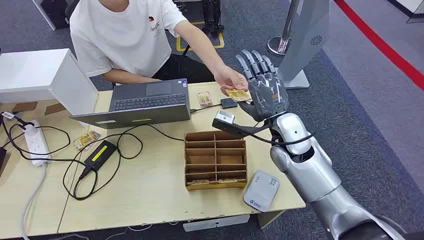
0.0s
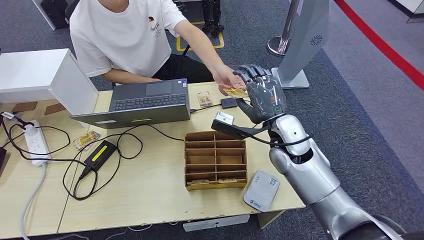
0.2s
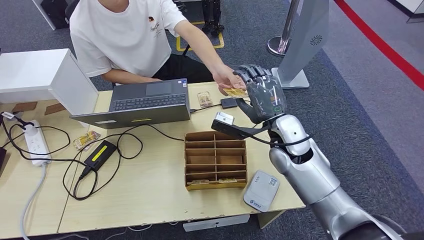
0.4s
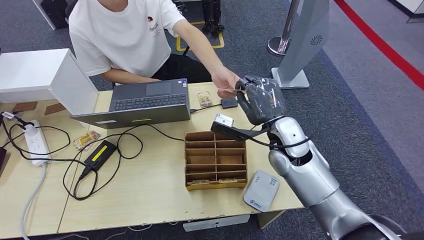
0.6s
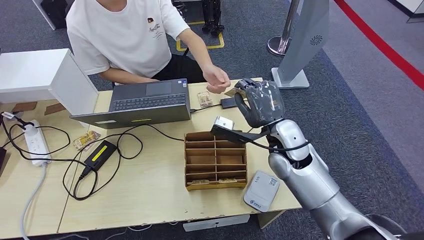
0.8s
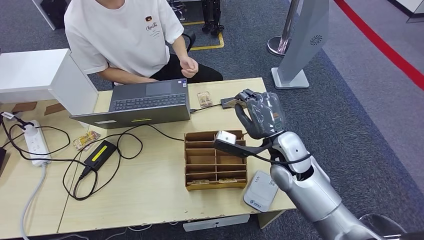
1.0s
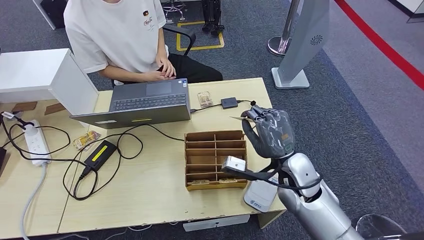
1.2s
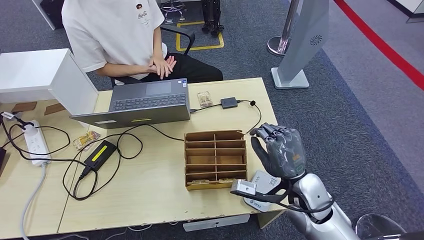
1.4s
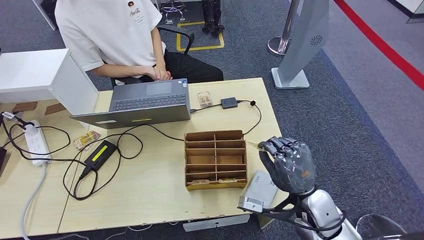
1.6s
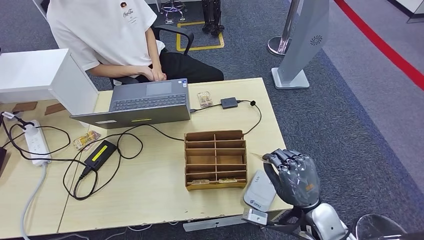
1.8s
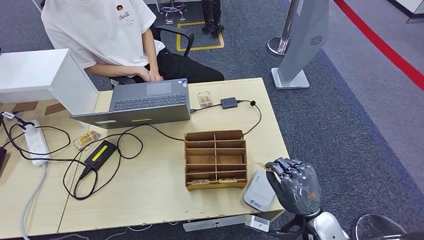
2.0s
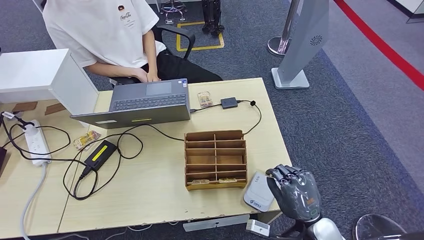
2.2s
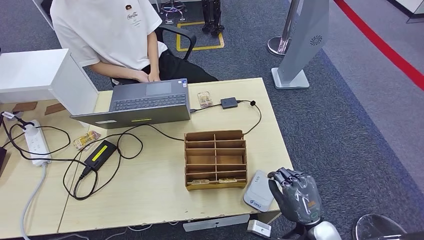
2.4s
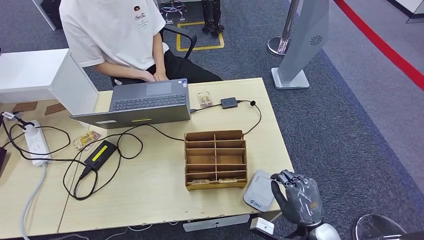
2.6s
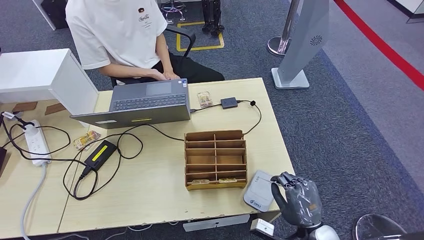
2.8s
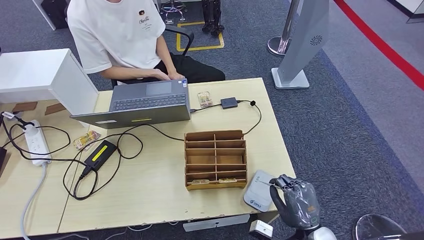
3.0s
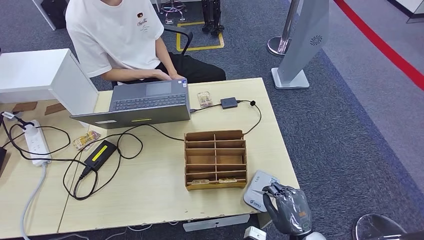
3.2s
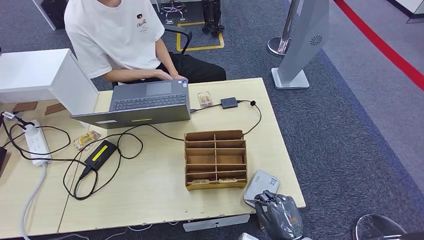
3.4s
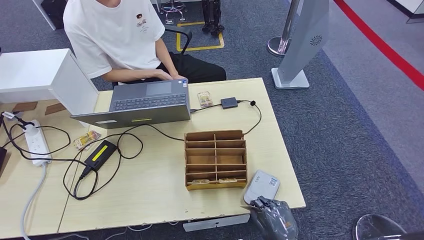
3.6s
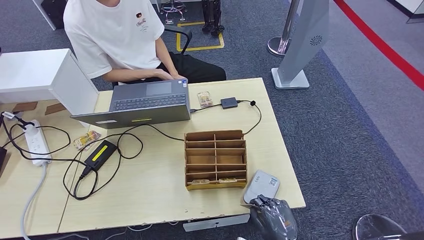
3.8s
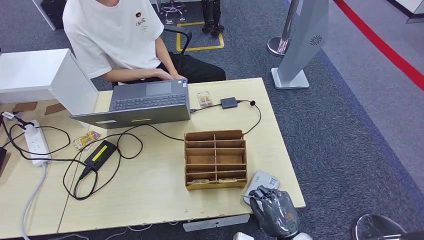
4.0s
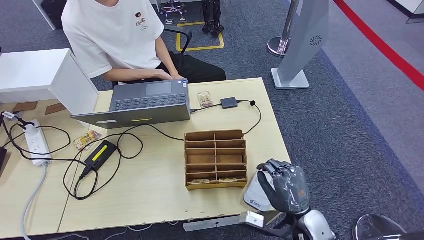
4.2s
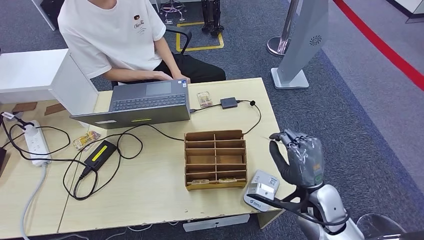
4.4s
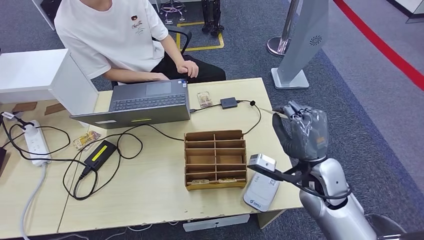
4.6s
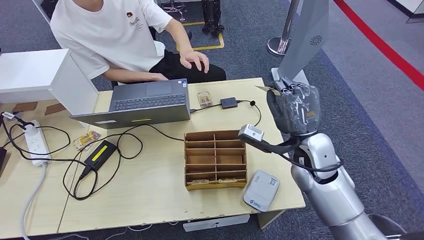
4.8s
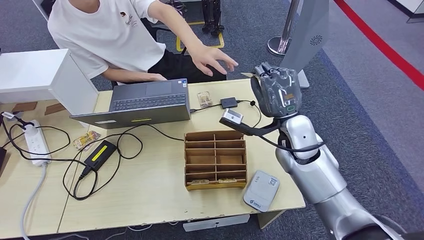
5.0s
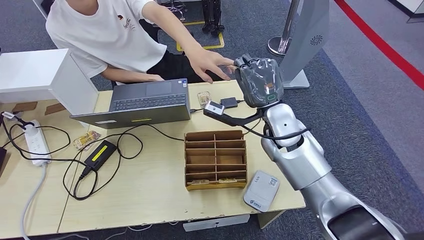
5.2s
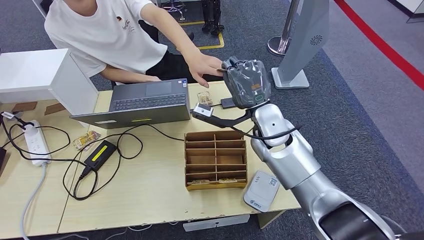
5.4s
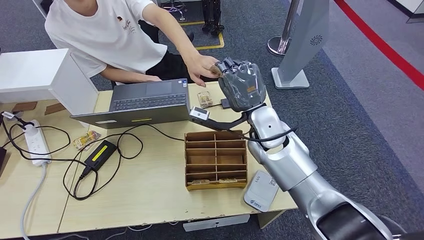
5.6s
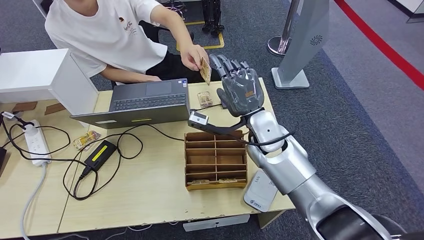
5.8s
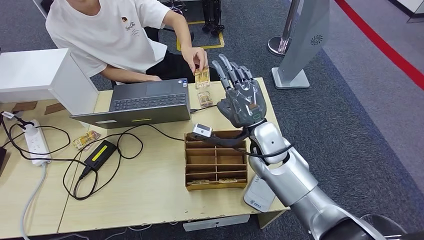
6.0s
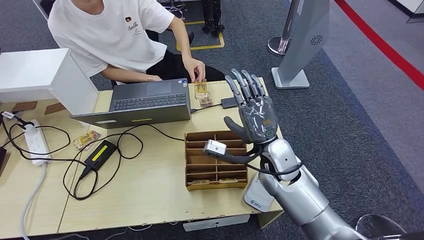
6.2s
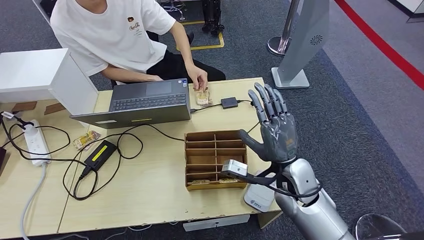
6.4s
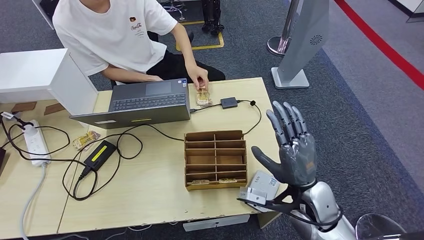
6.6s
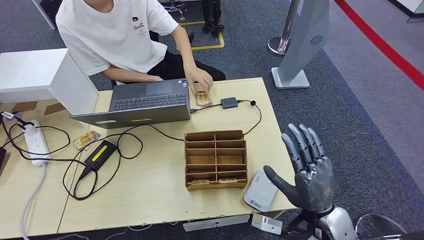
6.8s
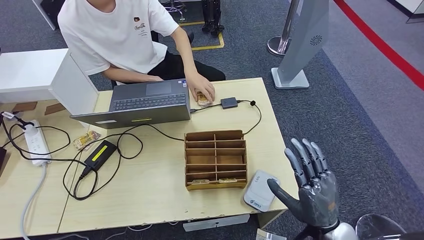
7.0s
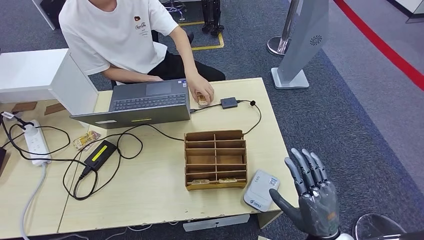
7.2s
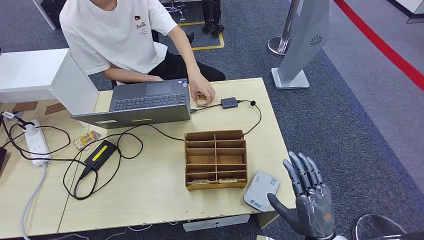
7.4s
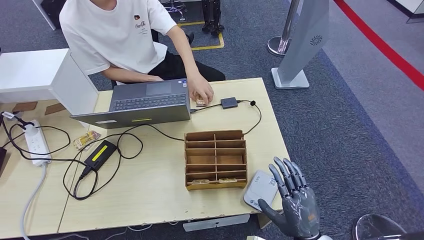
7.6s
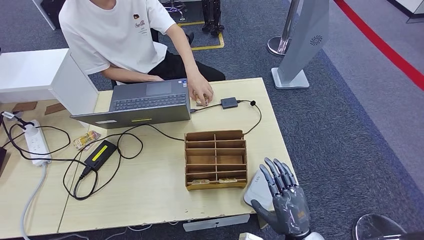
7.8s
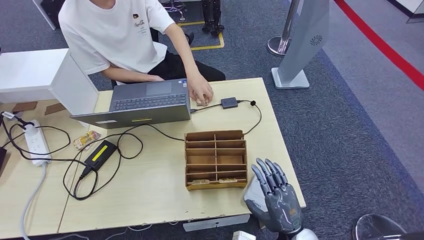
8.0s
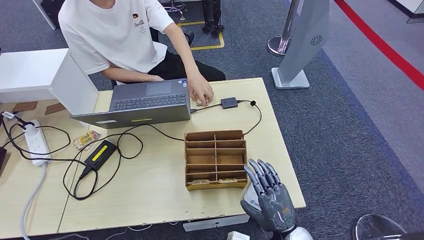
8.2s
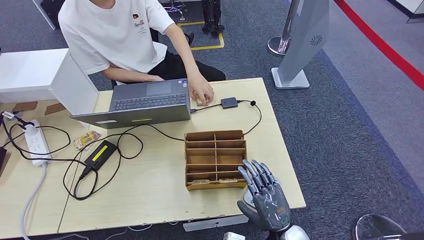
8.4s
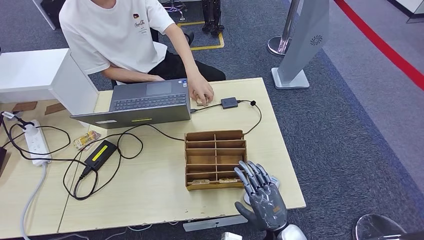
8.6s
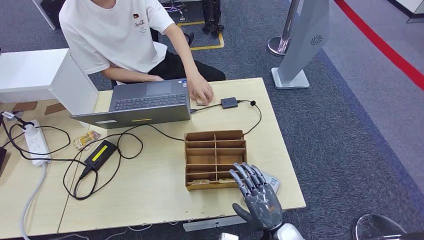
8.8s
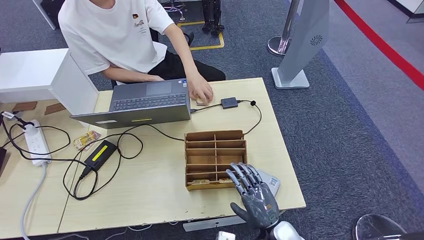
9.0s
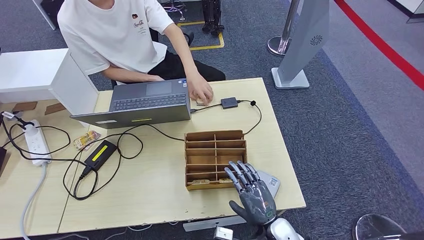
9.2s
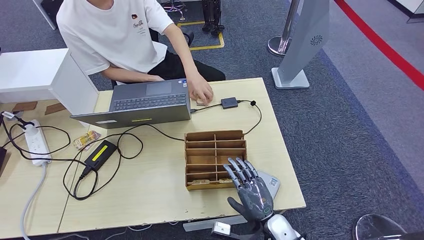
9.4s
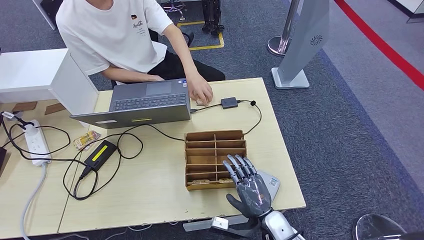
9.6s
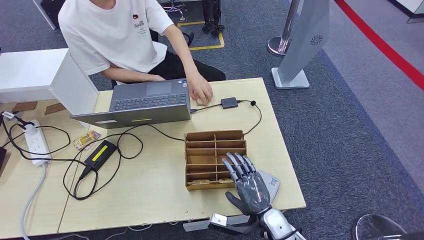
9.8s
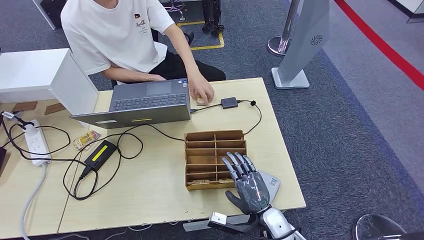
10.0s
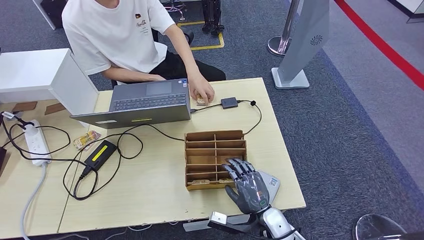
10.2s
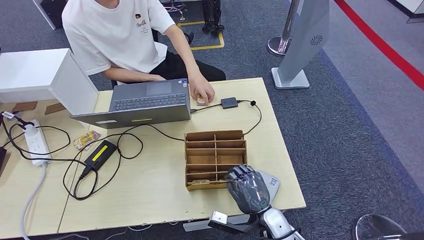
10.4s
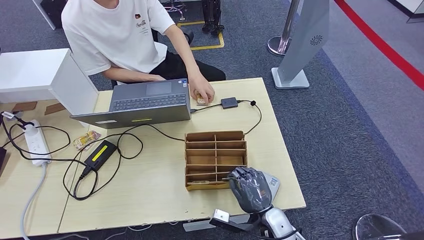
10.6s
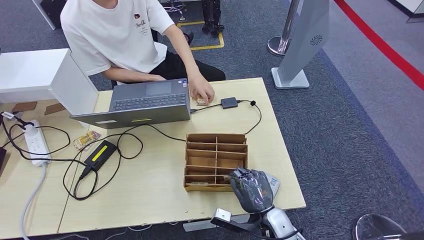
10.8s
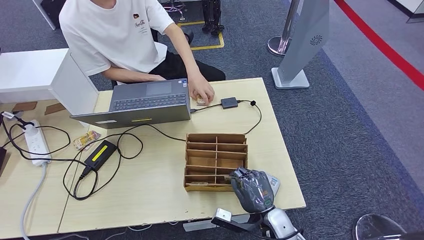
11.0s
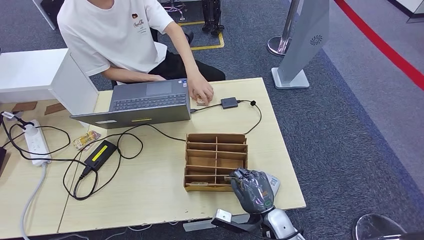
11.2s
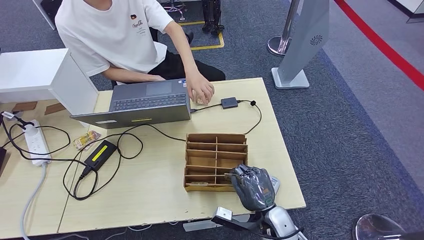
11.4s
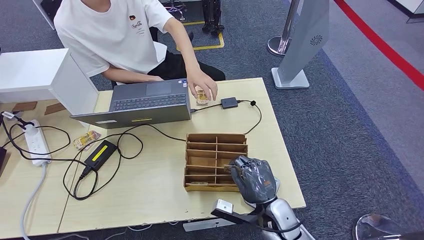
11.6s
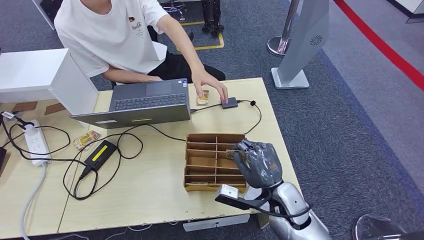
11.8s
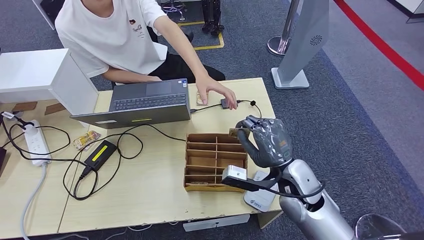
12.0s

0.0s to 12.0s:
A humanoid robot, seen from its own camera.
Step, 0.0s to 1.8s: Take the ID card from the person's hand.
Step, 2.0s to 4.6s: Place the ID card on the card reader.
Step, 5.0s to 7.4s: Hand the ID card to the person.
Step, 7.8s to 12.0s: Pick up the room key from the key card box.
1.6s to 3.0s: The right hand moves downward and backward, some 10 cm.
3.0s to 4.4s: The right hand travels upward and forward by roughly 10 cm.
4.4s to 6.0s: The right hand travels forward, to the left and upward by approximately 20 cm.
6.0s to 7.6s: The right hand shifts some 30 cm backward, downward and to the right.
7.6s to 9.0s: The right hand shifts approximately 5 cm to the left.
9.0s to 10.4s: The hands move only a little.
10.4s to 12.0s: The right hand goes approximately 15 cm upward and forward.

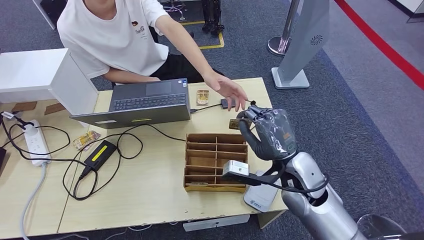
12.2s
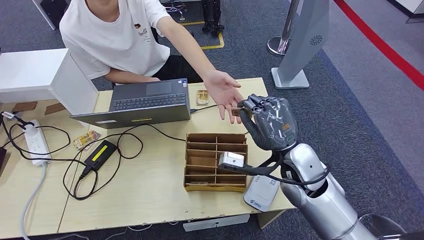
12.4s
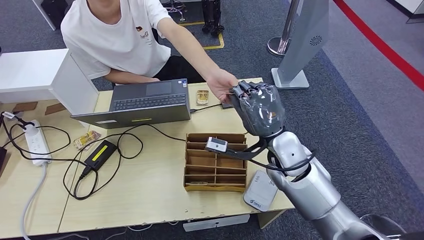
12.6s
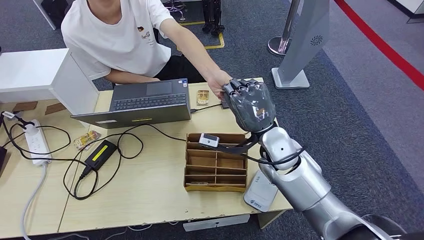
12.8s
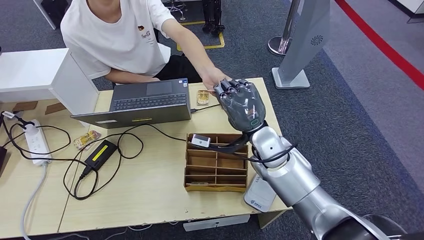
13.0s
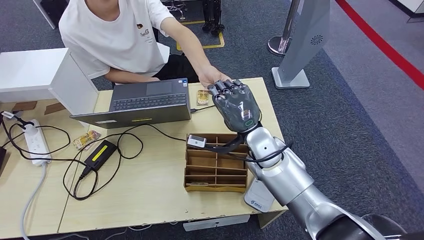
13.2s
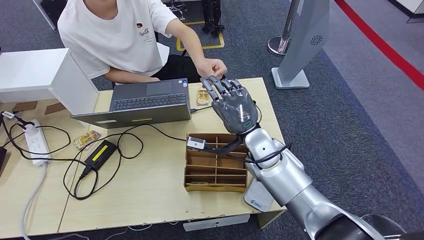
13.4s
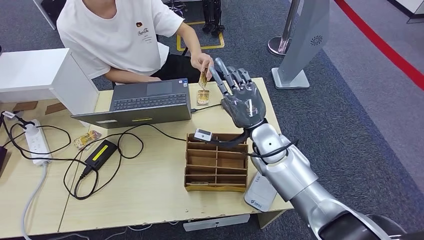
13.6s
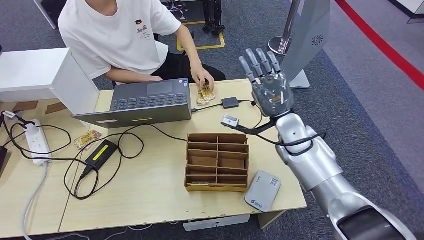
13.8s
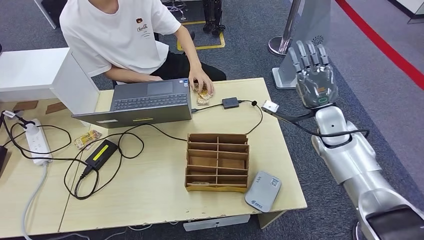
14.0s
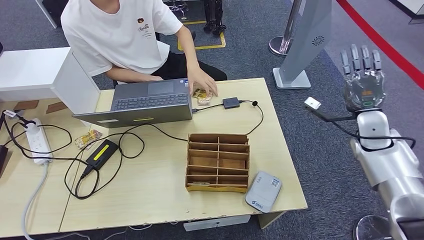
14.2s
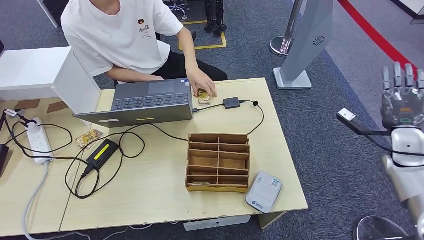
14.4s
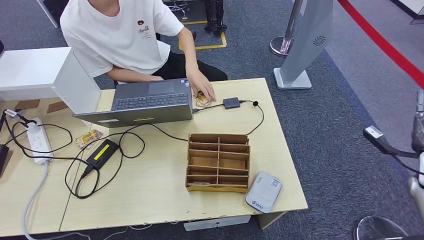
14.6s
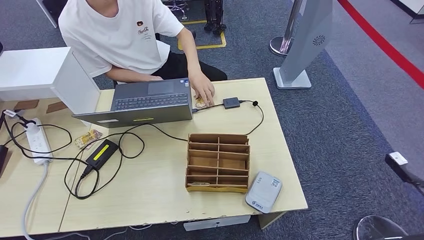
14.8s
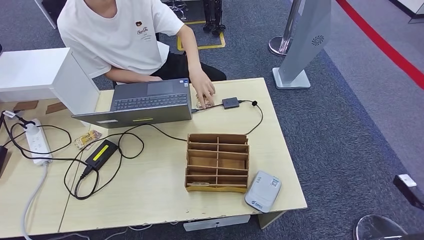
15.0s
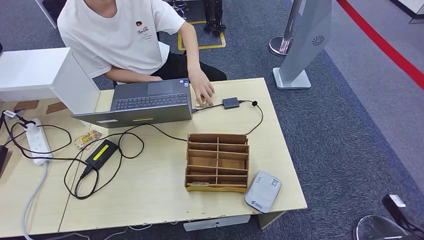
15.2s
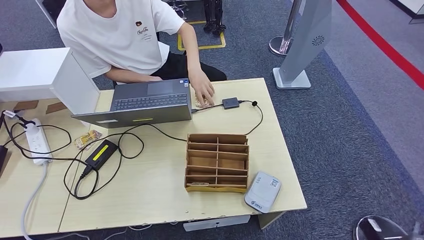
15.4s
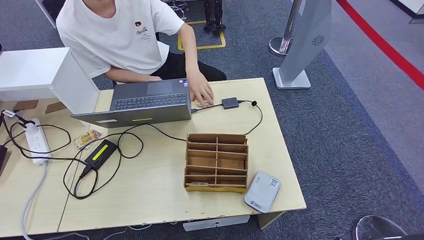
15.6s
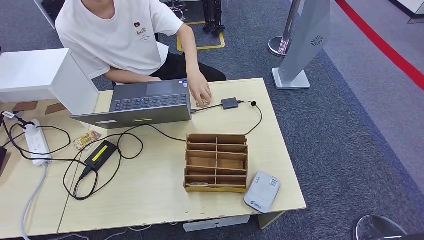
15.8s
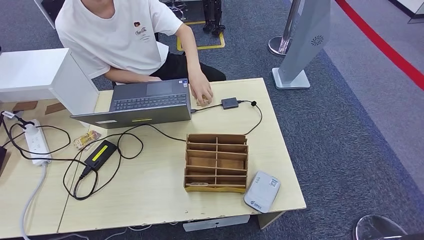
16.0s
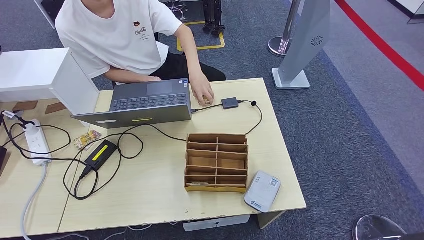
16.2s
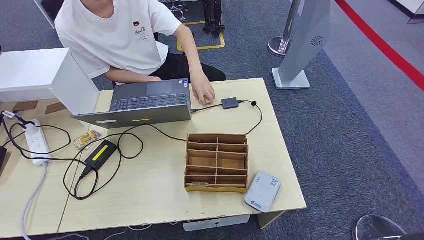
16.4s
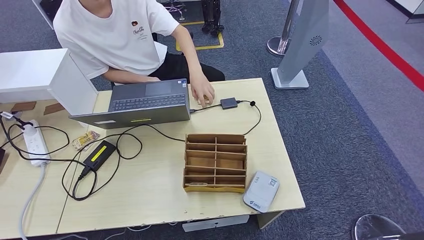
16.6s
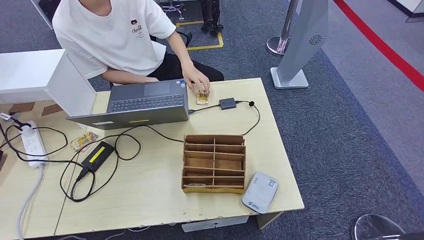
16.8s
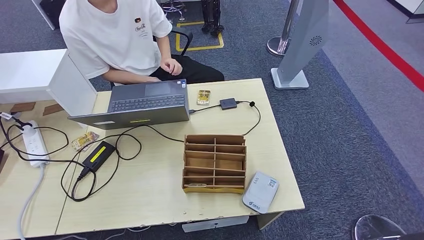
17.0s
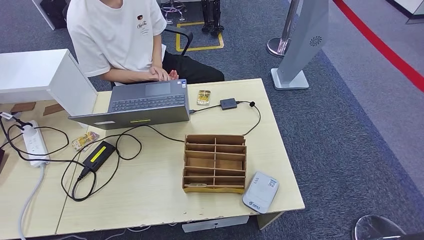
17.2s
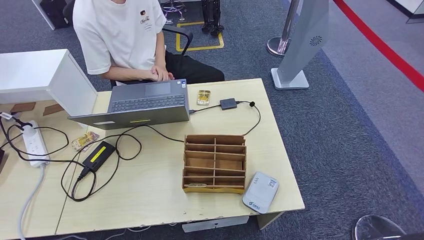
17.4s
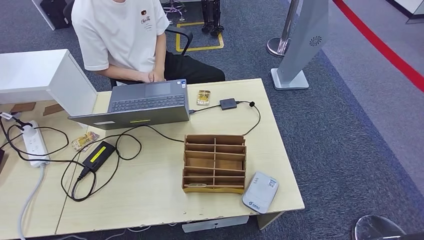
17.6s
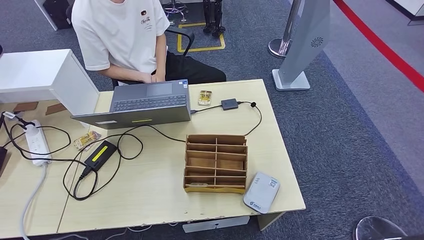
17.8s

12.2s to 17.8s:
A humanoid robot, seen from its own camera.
Step, 12.2s to 17.8s: Hand the room key to the person.
12.2s to 13.6s: The right hand heads forward and to the left, covering some 10 cm.
13.6s to 15.0s: The right hand heads to the right and backward, covering about 50 cm.
15.0s to 16.4s: The right hand goes roughly 40 cm to the left, downward and backward.
16.4s to 17.8s: The left hand heads to the left and backward, covering some 20 cm.
